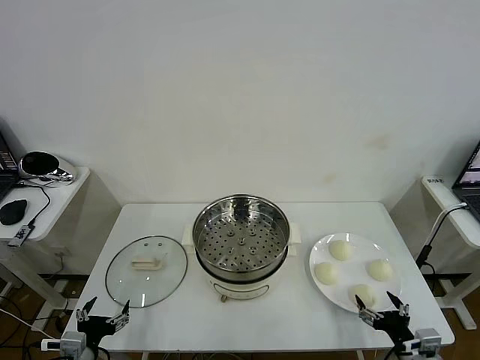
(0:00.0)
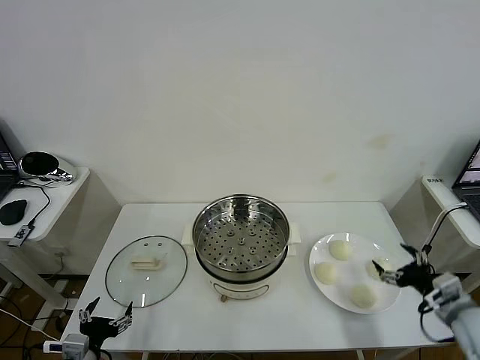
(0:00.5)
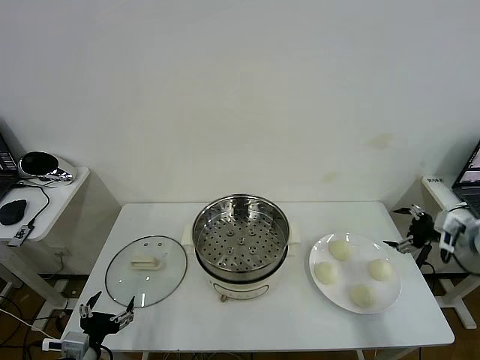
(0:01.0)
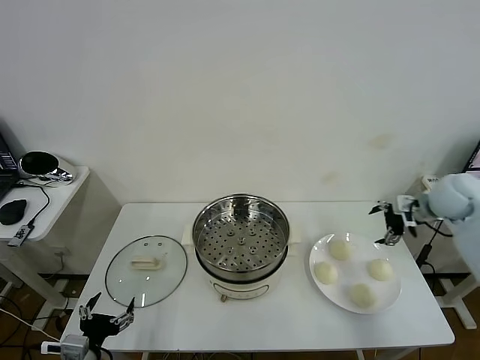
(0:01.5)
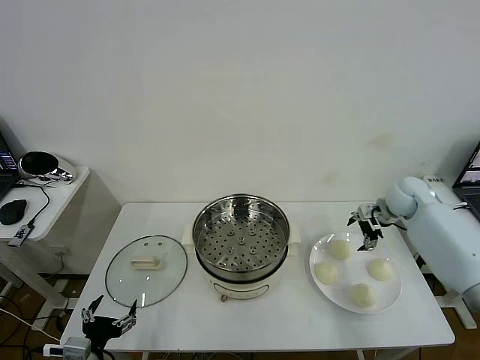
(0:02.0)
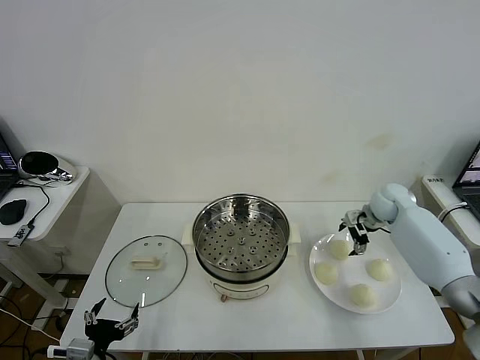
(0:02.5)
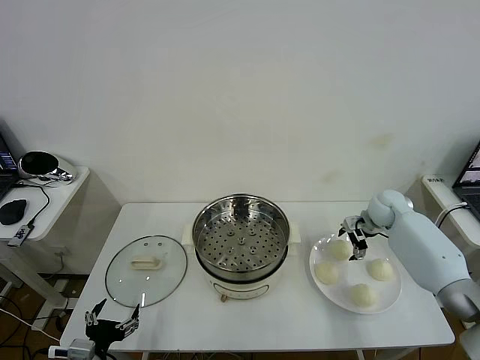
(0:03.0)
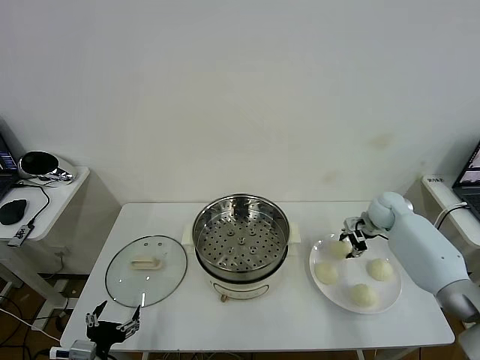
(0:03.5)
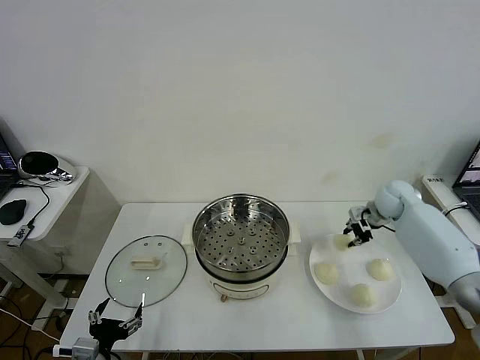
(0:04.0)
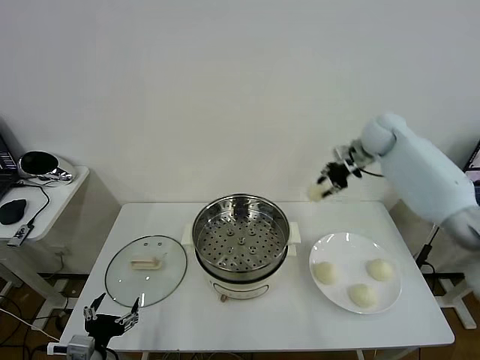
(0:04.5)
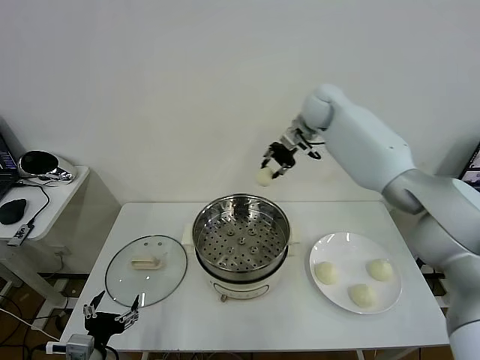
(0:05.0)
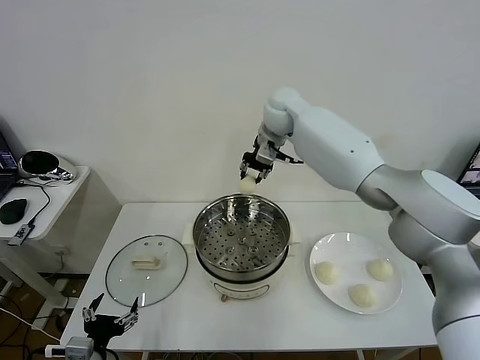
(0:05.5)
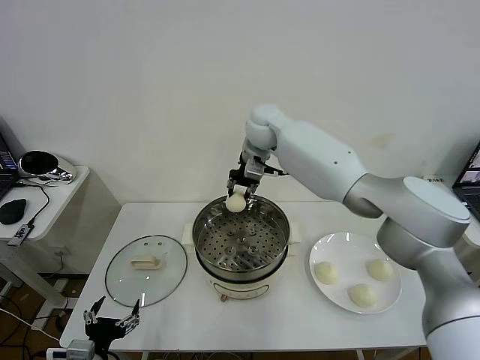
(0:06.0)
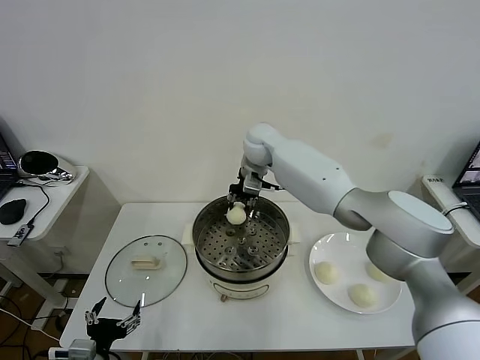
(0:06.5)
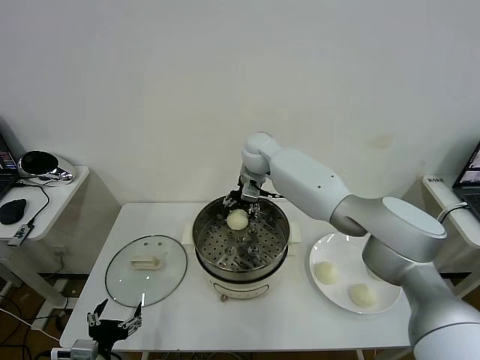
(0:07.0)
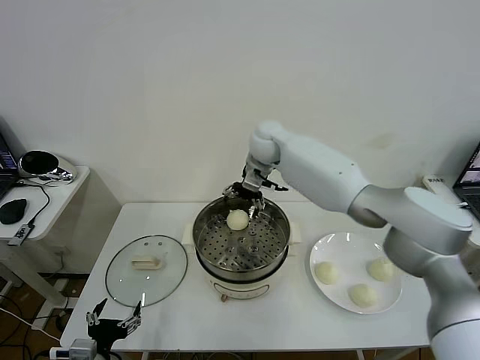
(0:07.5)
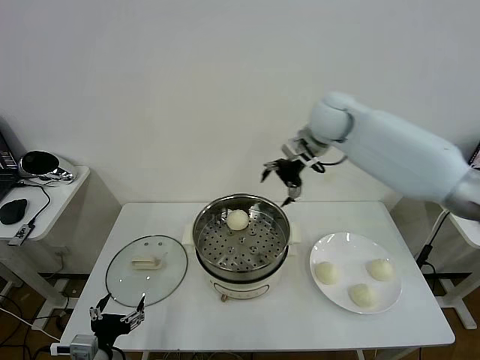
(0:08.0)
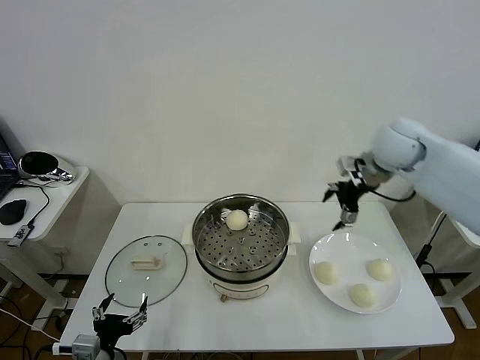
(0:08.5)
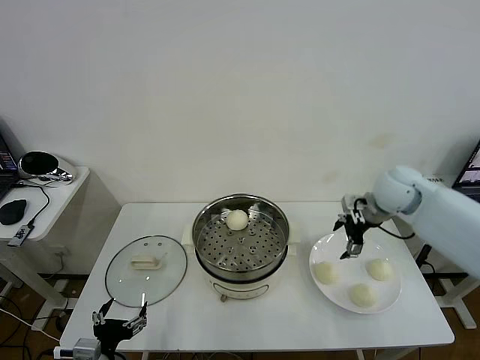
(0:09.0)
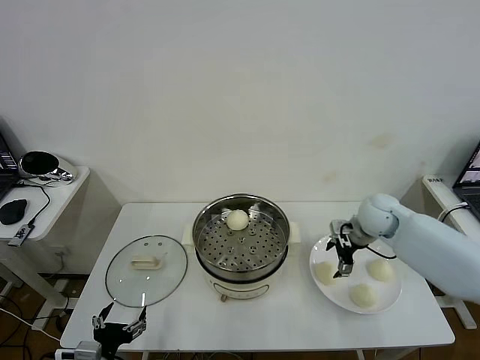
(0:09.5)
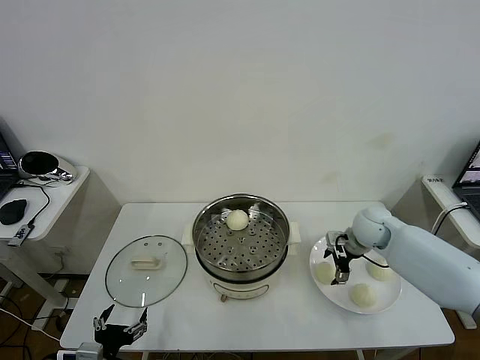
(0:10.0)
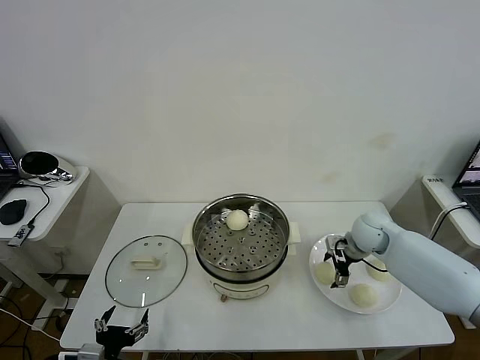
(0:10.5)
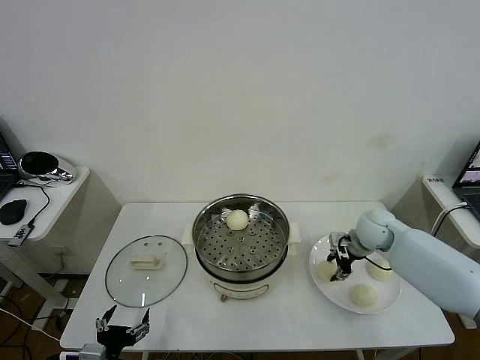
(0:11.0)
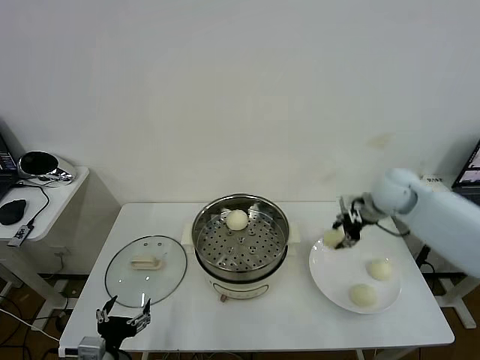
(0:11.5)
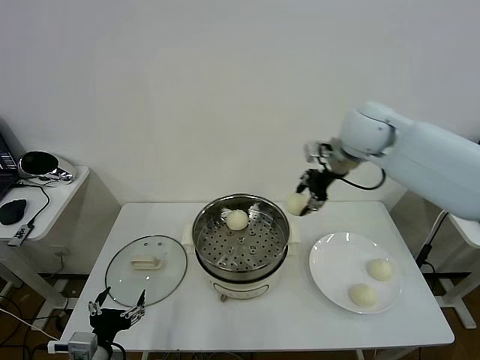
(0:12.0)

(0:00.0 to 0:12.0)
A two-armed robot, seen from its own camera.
Task of the whole recording: take steamed baozi put them in steamer then cover it.
Step, 0:00.0 - 0:03.5: Grasp the baozi in the plate with right gripper.
Step, 0:04.0 - 0:07.0: Place the baozi on the steamer with right gripper.
Step, 0:07.5 - 0:10.5: Grasp the baozi in the plate with right gripper.
0:02.0 - 0:04.0: The right gripper closes its fingers.
0:04.0 - 0:06.0: The right gripper is displaced to the left by approximately 35 cm.
0:06.0 - 0:08.0: The right gripper shifts roughly 20 cm to the right, and opens.
0:08.0 - 0:10.0: The right gripper is displaced downward by approximately 25 cm.
0:10.0 - 0:12.0: The right gripper goes approximately 30 cm upward and to the left, and closes.

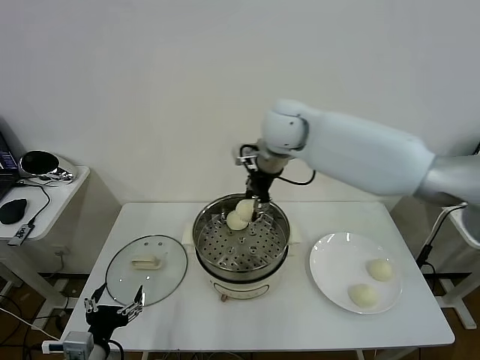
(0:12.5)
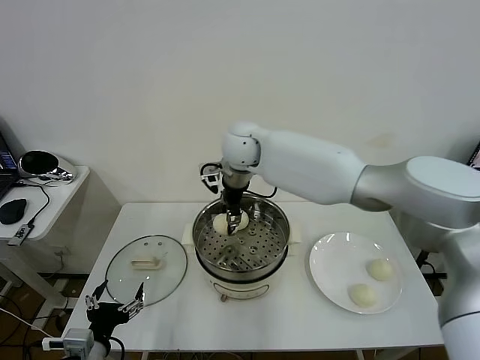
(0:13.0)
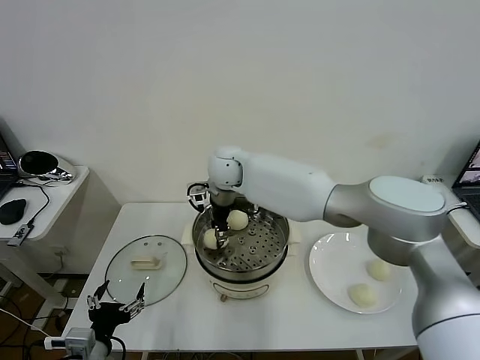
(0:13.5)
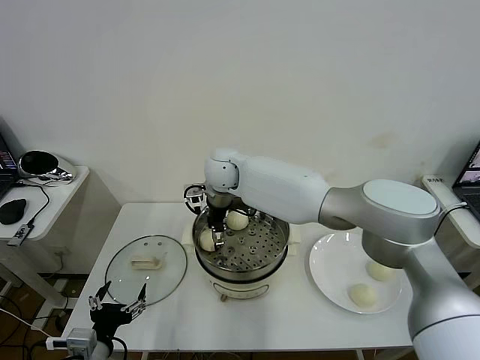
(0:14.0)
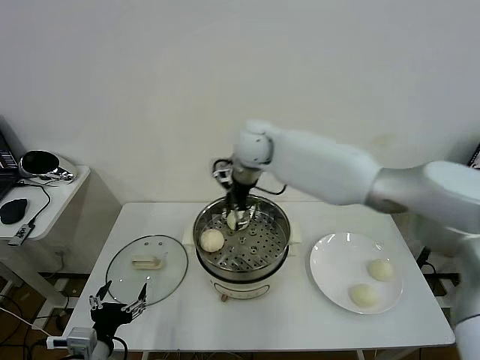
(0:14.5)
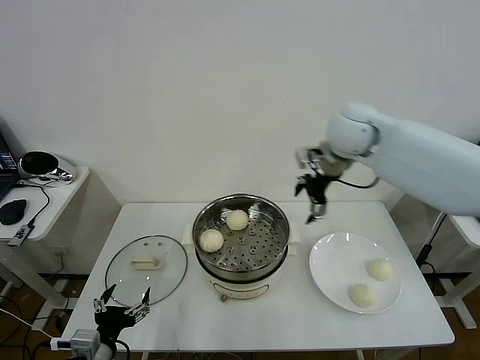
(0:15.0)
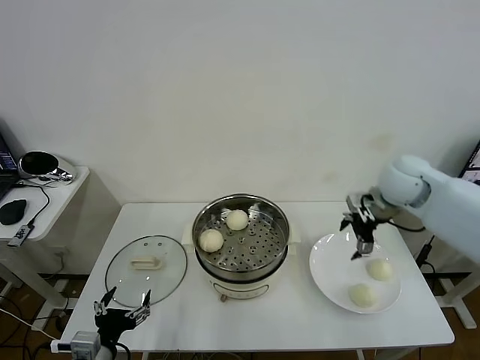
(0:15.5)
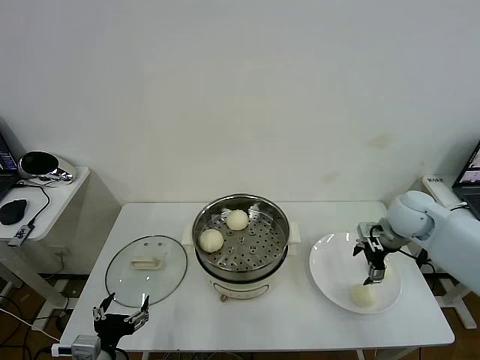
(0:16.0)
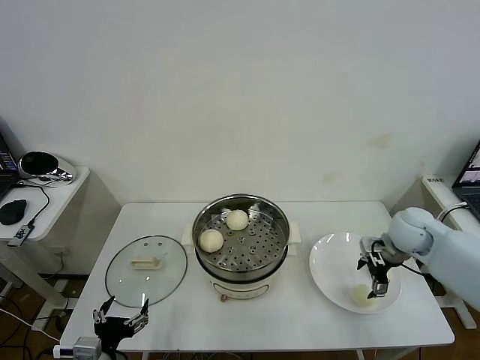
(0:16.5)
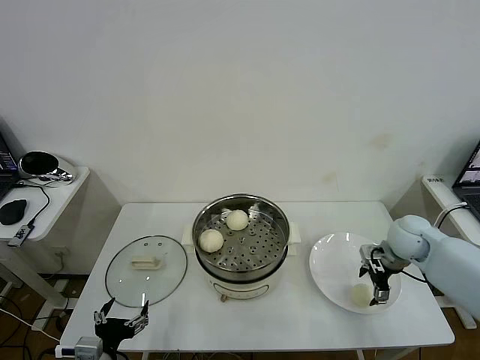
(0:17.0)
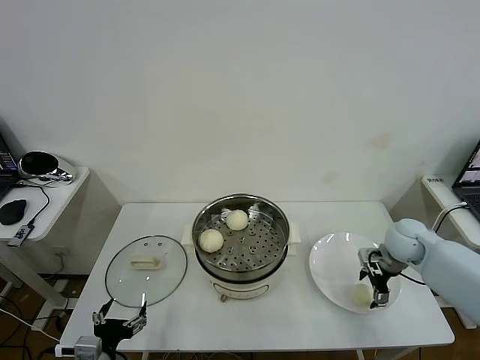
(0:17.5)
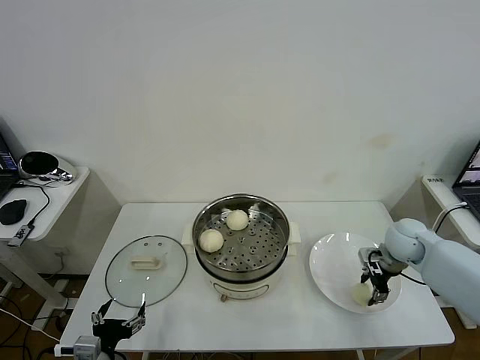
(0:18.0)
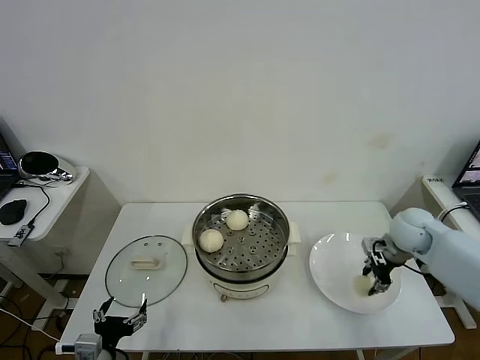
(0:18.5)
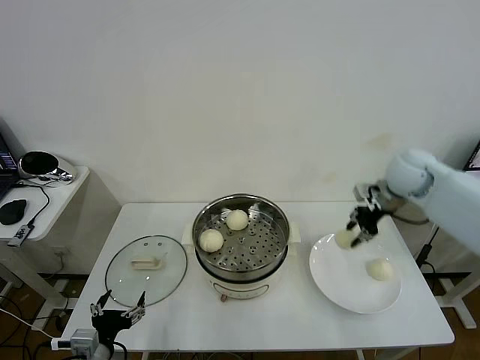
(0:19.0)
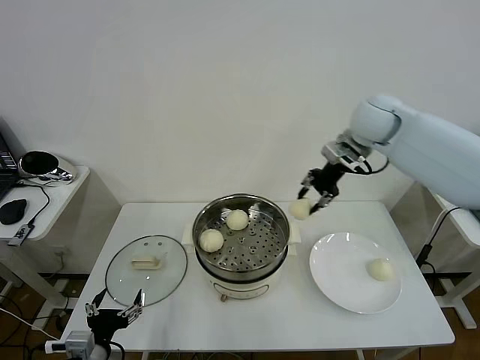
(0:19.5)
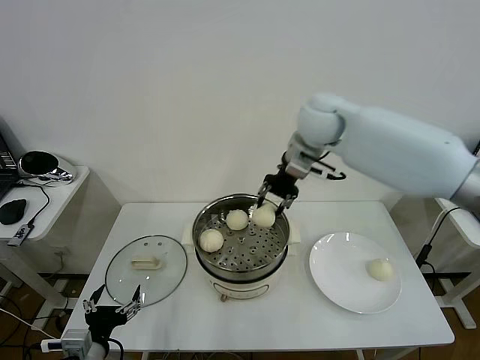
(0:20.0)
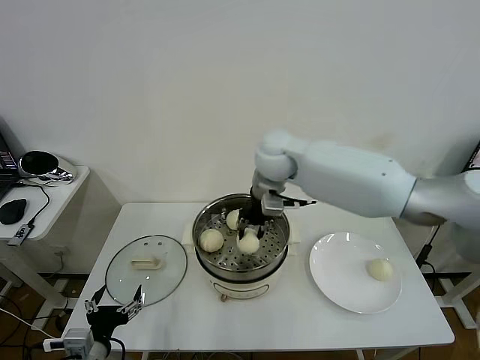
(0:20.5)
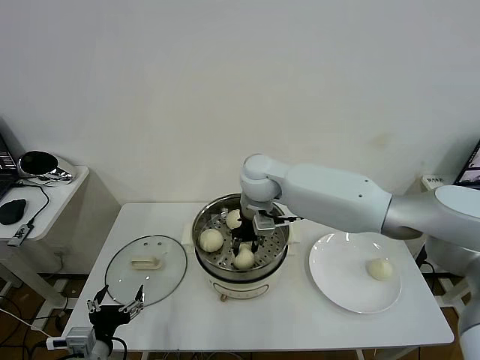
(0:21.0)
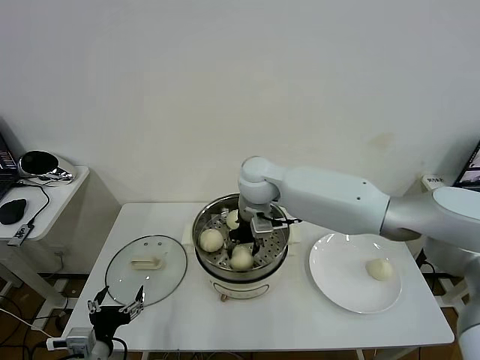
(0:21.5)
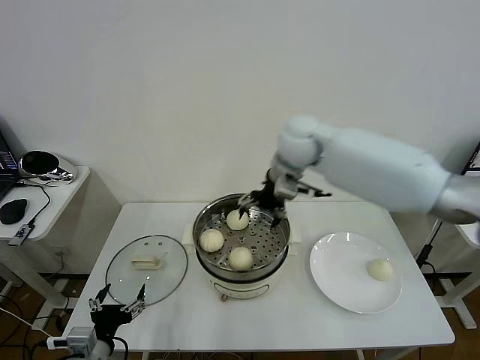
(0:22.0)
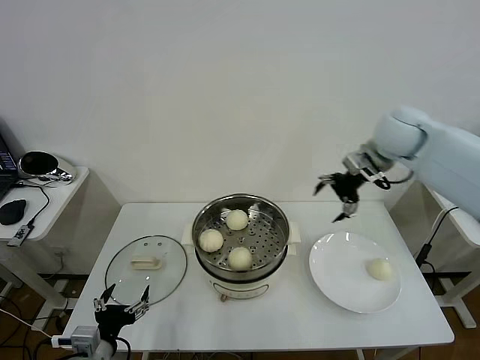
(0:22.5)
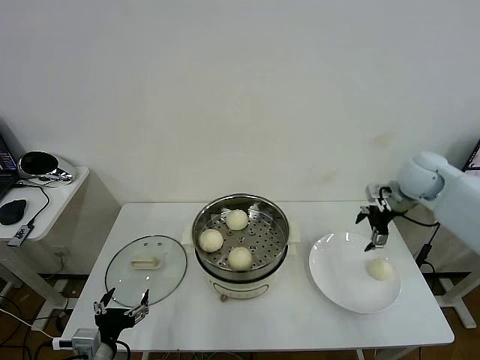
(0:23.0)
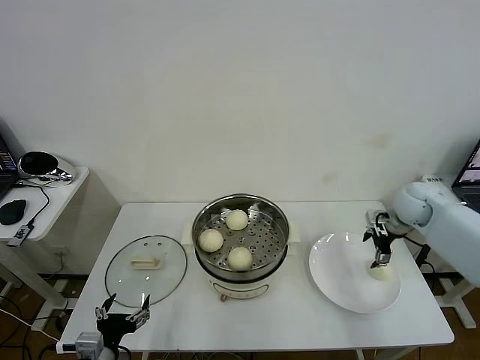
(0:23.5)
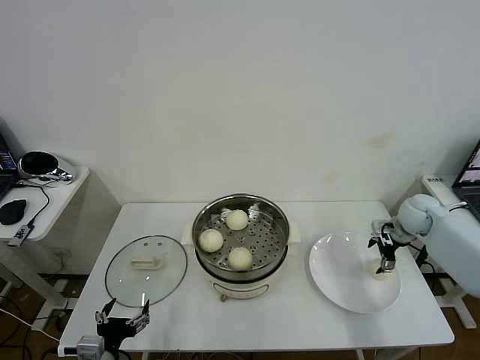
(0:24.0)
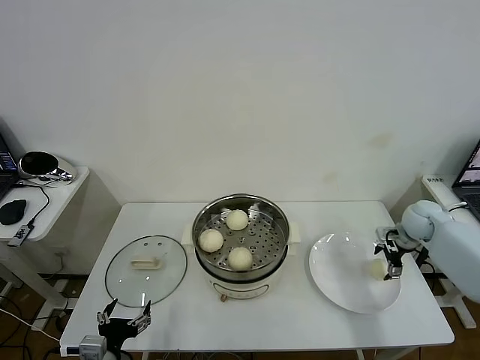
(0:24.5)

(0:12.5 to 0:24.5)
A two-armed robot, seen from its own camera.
Task of the whole recording: take steamed baozi put them in steamer then cover it.
Step, 0:14.5 - 0:18.0: Grasp the baozi in the plate with right gripper.
Step, 0:18.5 - 0:21.5: Place the baozi on the steamer with right gripper.
0:12.5 - 0:14.5: The right gripper travels downward and back again, some 10 cm each way, and opens its fingers.
0:14.5 - 0:16.5: The right gripper is displaced to the right and downward by some 35 cm.
0:16.5 - 0:18.5: The right gripper closes.
0:18.5 - 0:20.5: The right gripper shifts some 35 cm to the left.
0:20.5 - 0:22.5: The right gripper shifts about 25 cm to the right, and opens.
0:22.5 - 0:24.5: The right gripper goes about 25 cm downward and to the right.

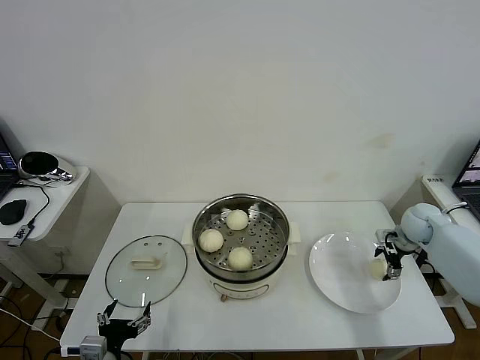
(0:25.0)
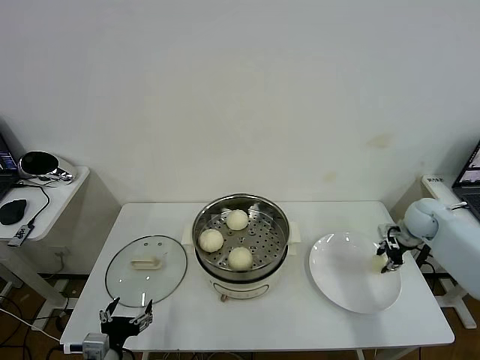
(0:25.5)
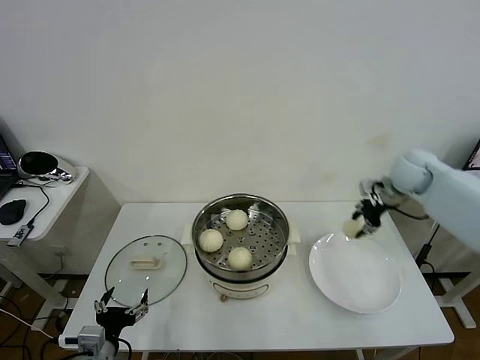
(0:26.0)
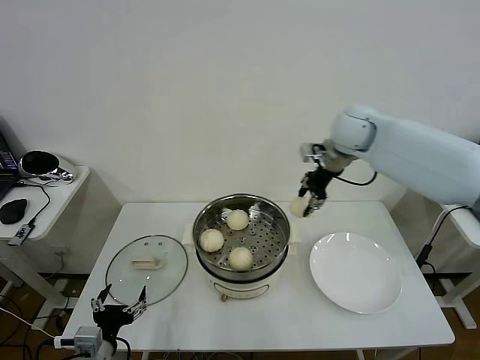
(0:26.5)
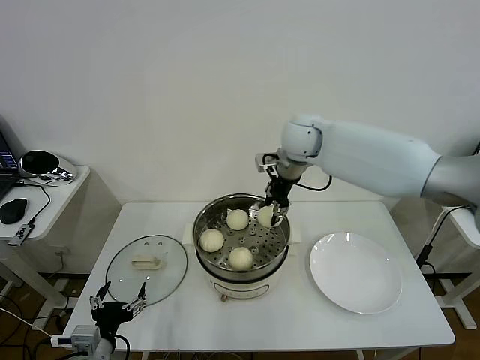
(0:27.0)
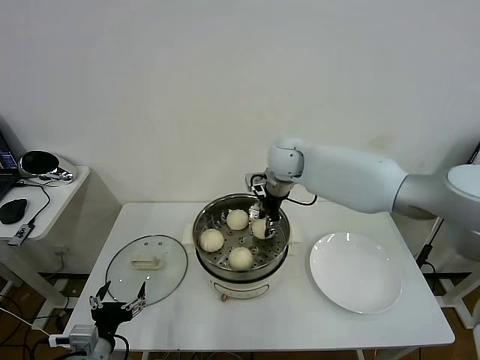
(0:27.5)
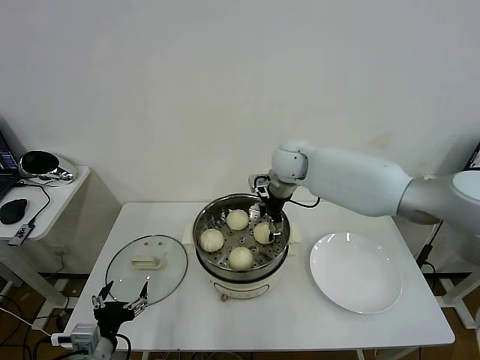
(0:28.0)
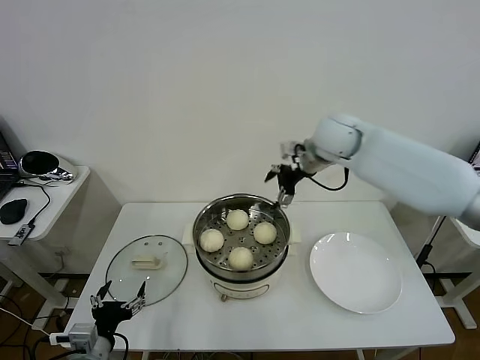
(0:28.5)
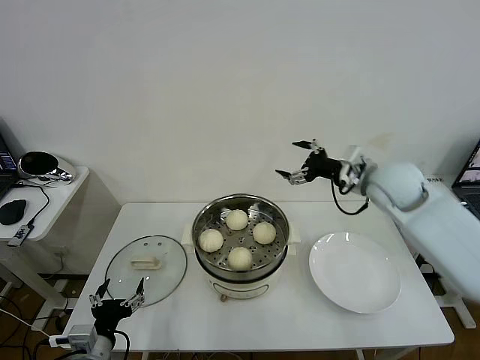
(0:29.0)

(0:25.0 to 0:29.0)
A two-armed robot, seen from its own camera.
Task of the whole recording: take steamed baozi put them in steamer then cover it.
Step, 0:26.0 - 0:28.0: Place the baozi on the steamer with right gripper.
0:25.0 - 0:27.0: The right gripper shifts about 40 cm to the left and upward, and closes.
0:27.0 - 0:29.0: The right gripper goes approximately 20 cm to the right and backward, and opens its fingers.
